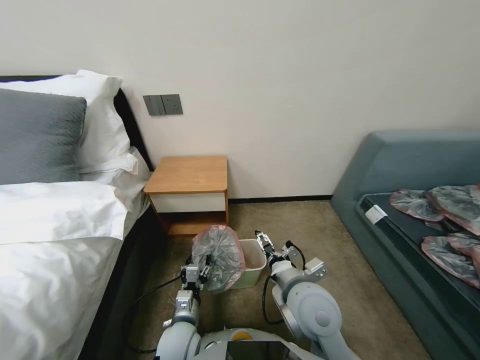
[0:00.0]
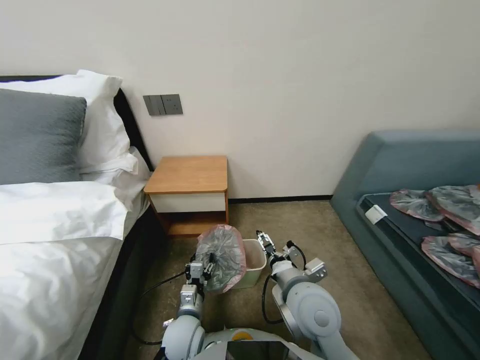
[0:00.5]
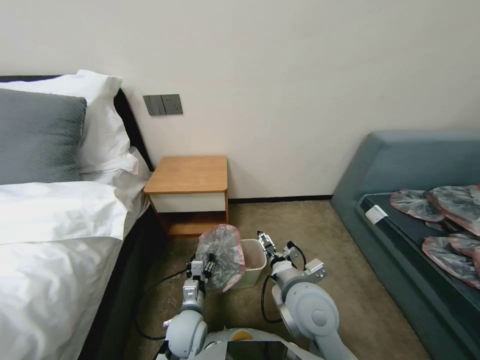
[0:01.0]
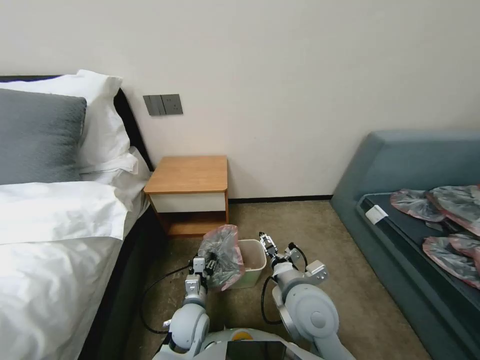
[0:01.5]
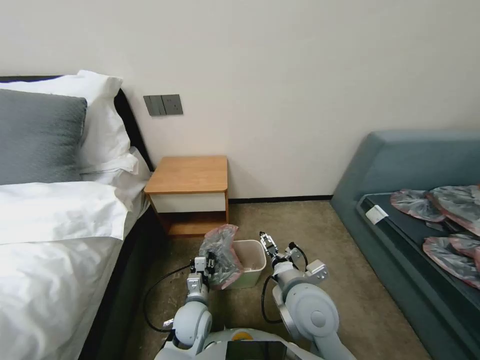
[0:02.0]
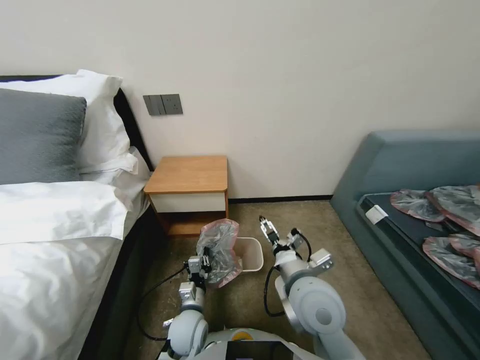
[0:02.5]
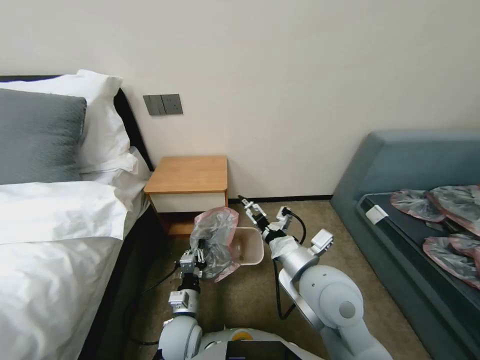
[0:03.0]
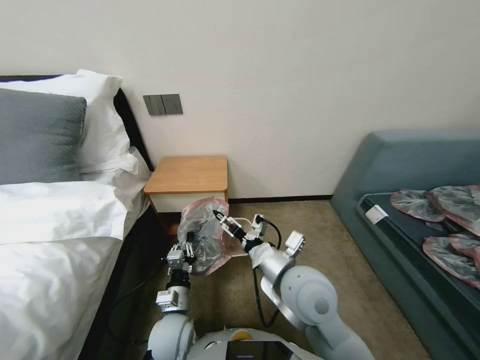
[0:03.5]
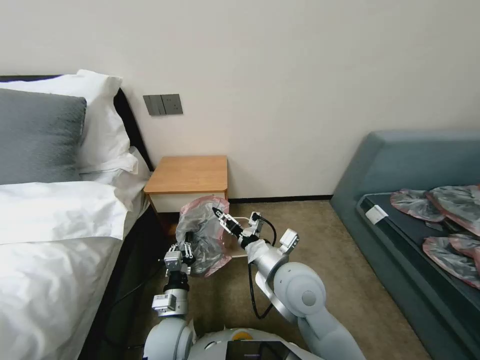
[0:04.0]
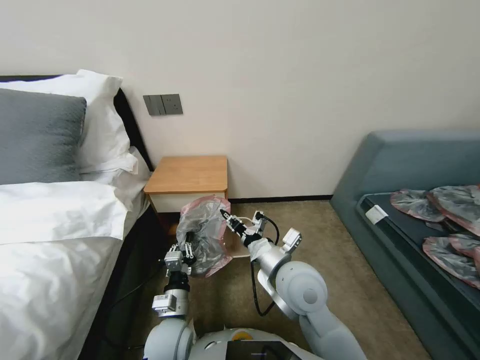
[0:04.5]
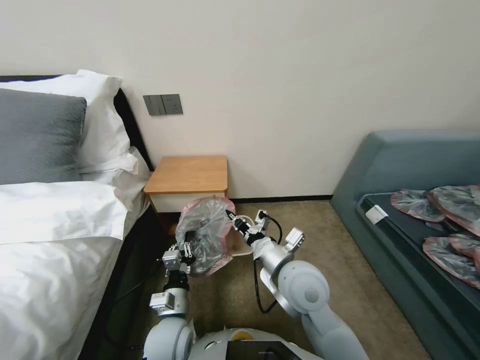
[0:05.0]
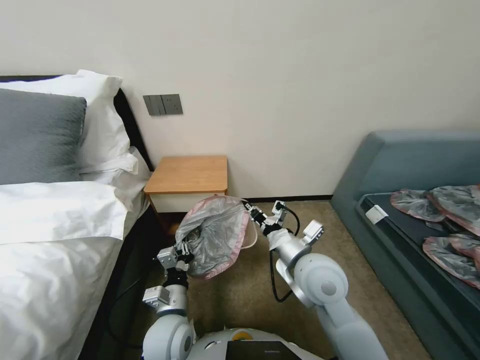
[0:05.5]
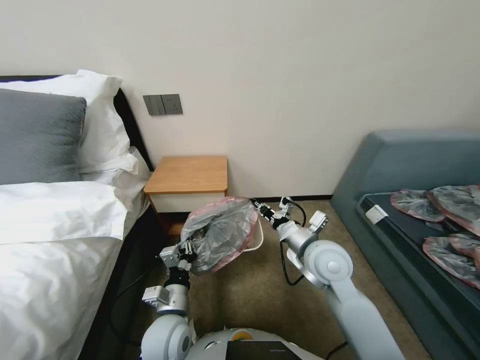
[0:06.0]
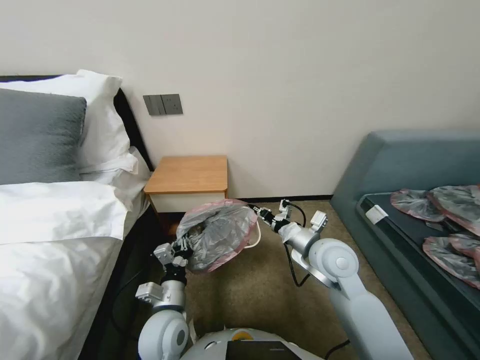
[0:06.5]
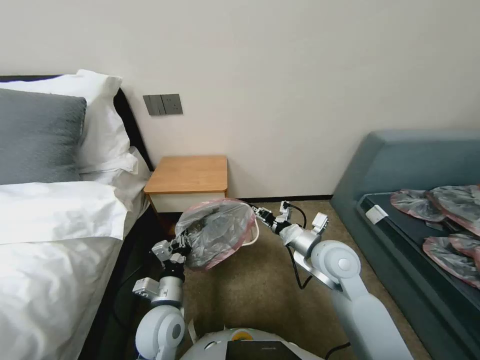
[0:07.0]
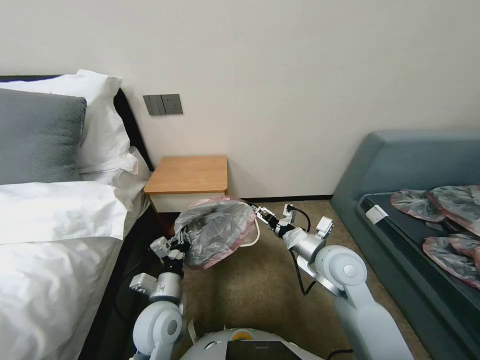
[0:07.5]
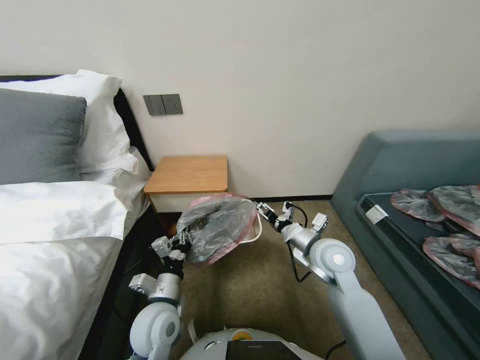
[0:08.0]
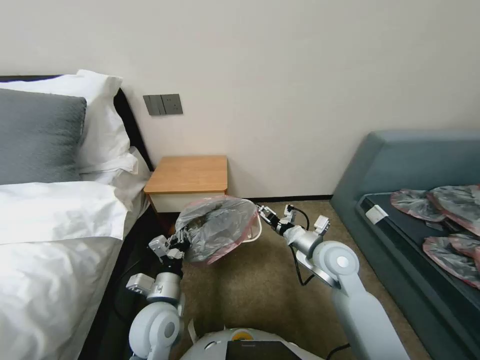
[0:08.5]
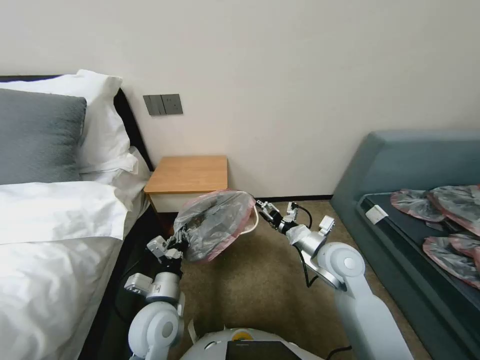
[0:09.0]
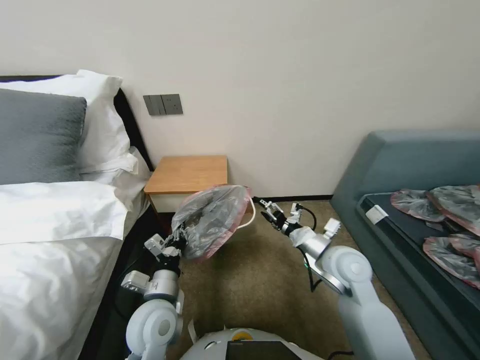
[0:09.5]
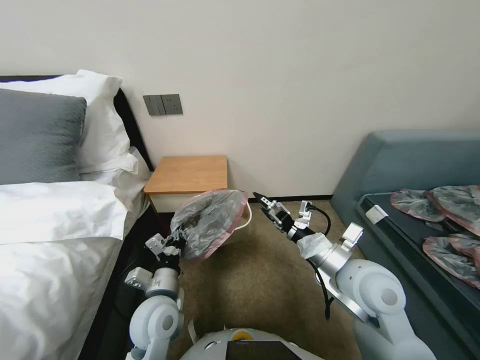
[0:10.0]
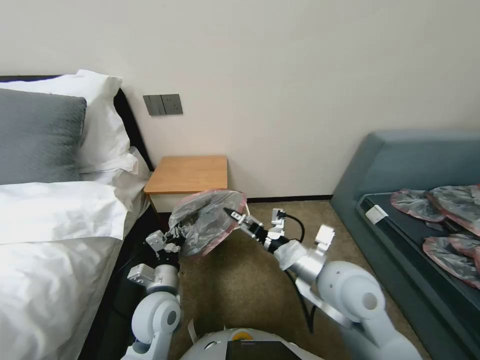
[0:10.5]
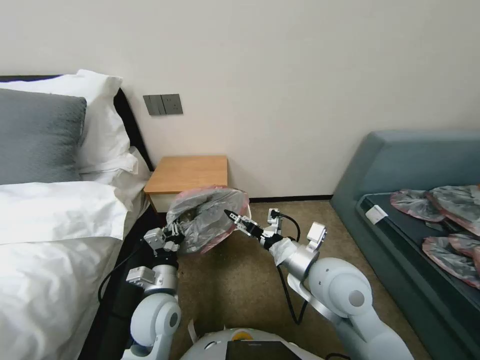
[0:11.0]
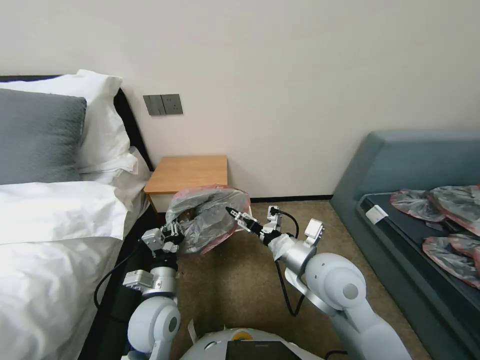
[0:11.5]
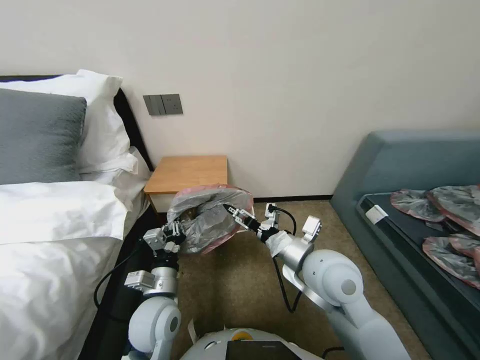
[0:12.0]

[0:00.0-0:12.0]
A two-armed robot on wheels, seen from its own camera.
Task of the whole recording: Pick up the garbage bag from the table and place it over the trash can.
0:00.0 to 0:02.0: The left gripper is displaced forward by about 5 cm.
0:02.0 to 0:04.0: The right gripper moves approximately 5 cm. The left gripper is displaced upward by approximately 5 cm, and closes up.
0:04.0 to 0:06.0: The right gripper moves to the right and forward, approximately 10 cm, and closes up.
0:06.0 to 0:08.0: The right gripper opens.
0:08.0 to 0:10.0: The right gripper is displaced backward by roughly 5 cm.
0:10.0 to 0:12.0: The right gripper is displaced to the left by some 5 cm.

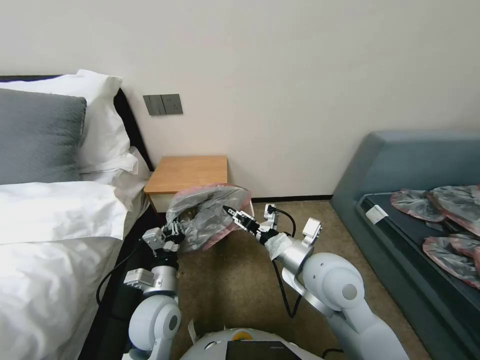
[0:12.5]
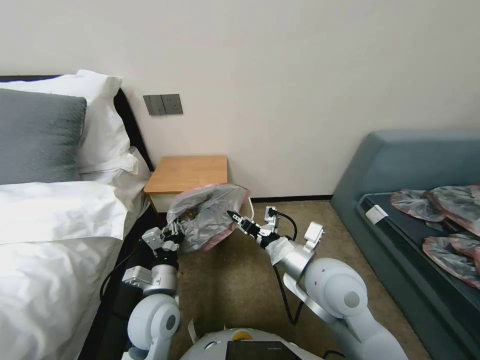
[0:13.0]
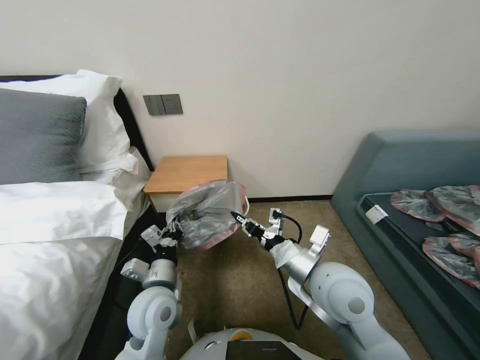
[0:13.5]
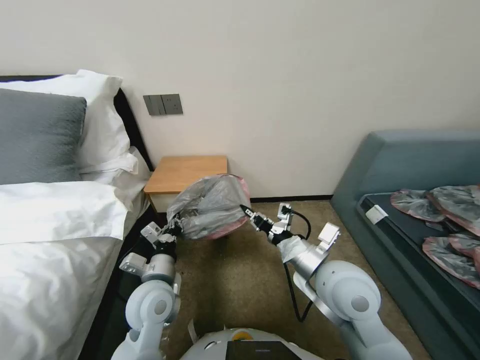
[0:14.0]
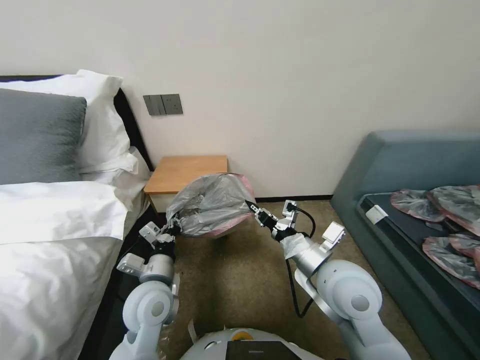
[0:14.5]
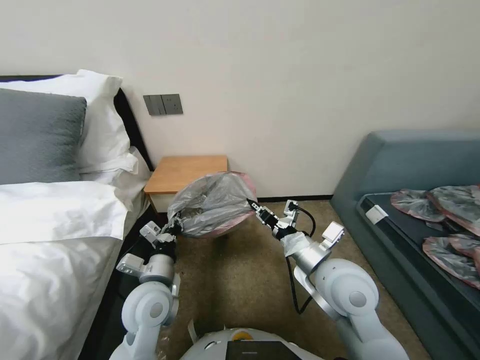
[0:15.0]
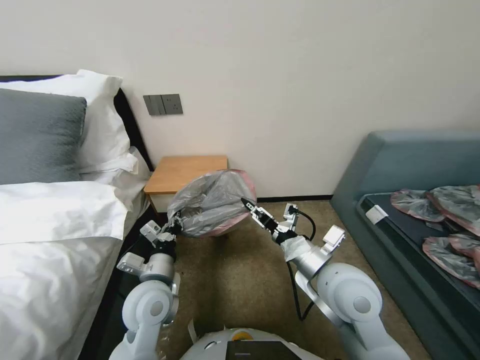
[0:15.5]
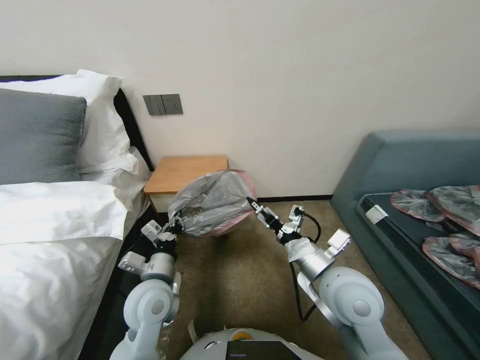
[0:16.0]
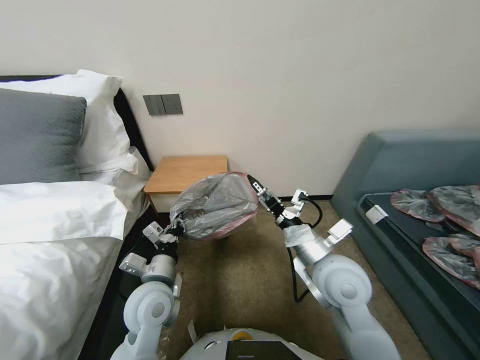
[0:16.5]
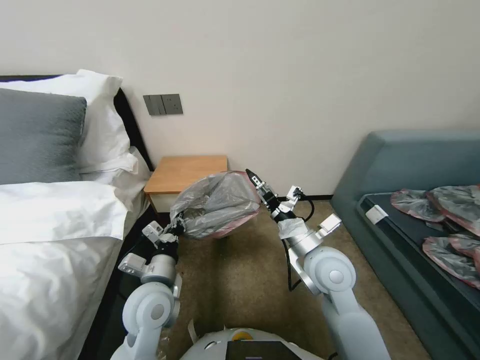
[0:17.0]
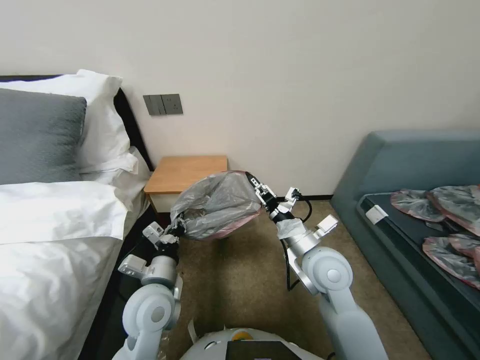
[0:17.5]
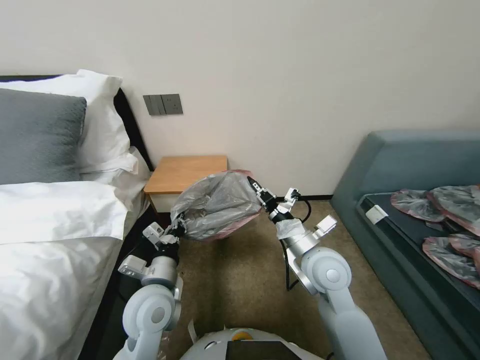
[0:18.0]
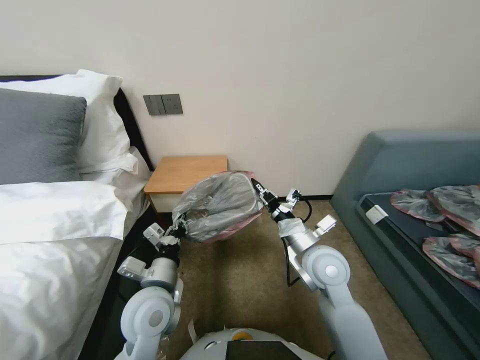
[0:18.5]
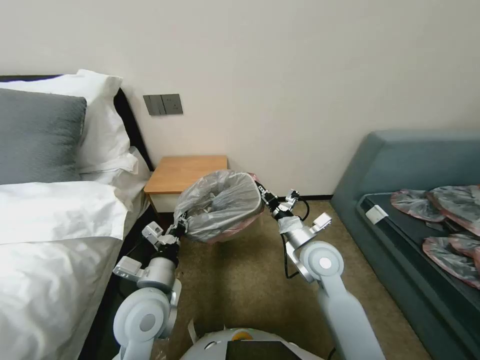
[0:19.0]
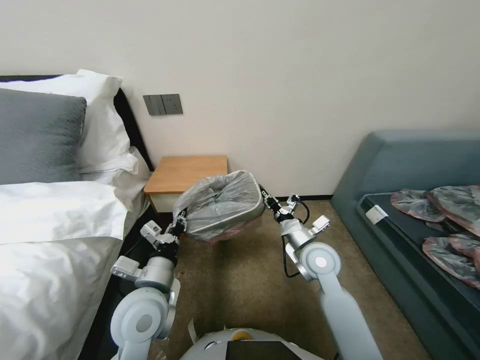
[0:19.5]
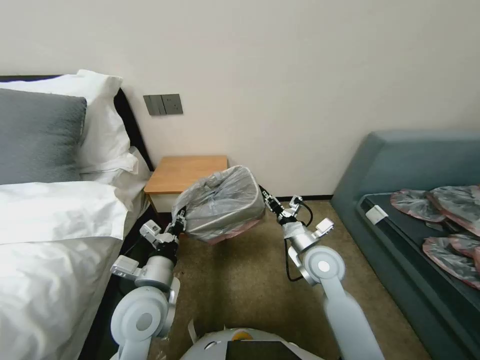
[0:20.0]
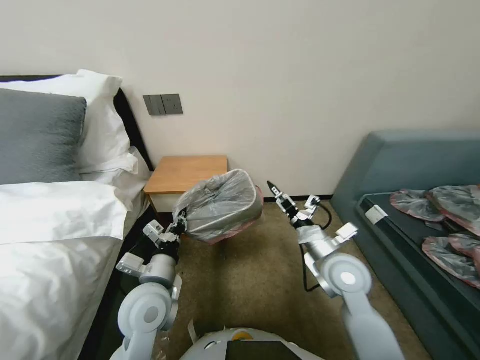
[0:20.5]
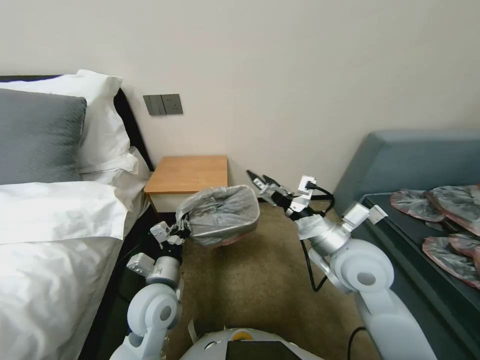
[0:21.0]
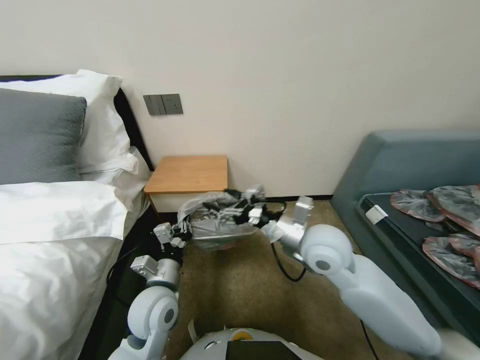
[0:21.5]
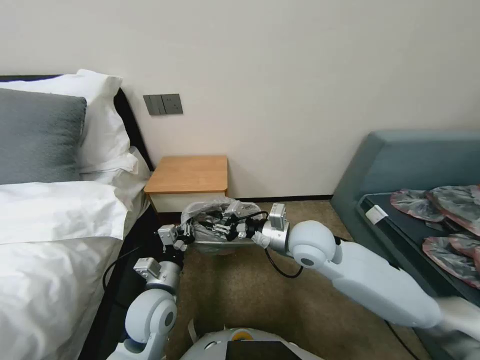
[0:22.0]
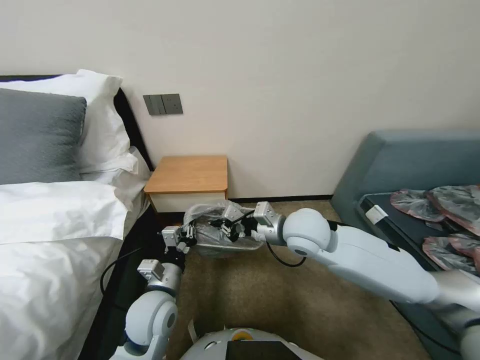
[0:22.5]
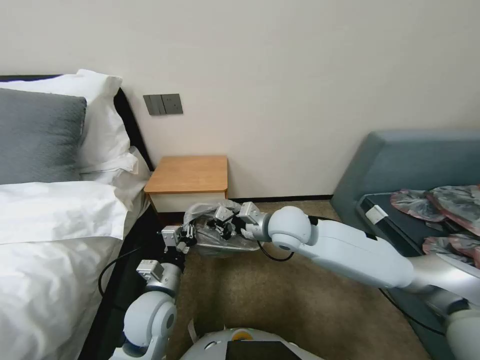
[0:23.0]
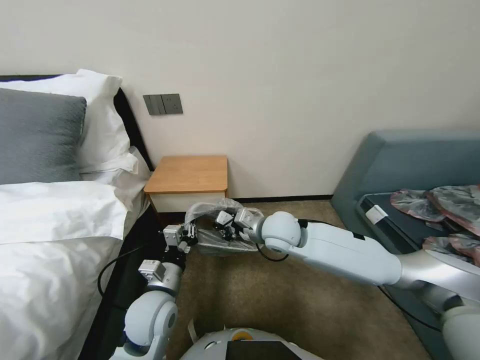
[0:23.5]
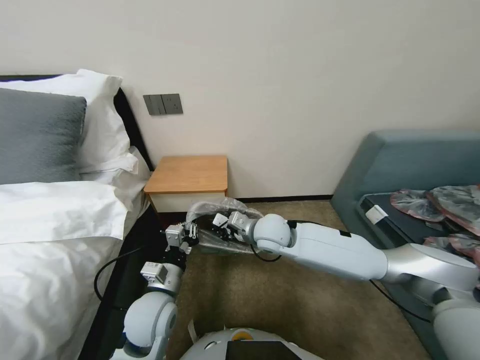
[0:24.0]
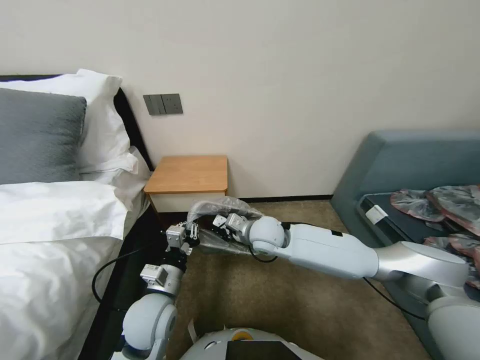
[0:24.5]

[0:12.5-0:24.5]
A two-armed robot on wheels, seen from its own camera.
Task of the whole recording: Pick up the garbage bag from the table and place it over the trash can.
0:12.5 to 0:14.5: The right gripper closes its fingers.
0:14.5 to 0:16.5: The right gripper opens.
0:16.5 to 0:18.5: The right gripper changes place by some 5 cm, and closes up.
0:18.5 to 0:20.5: The right gripper moves some 5 cm, and opens.
0:20.5 to 0:22.5: The right gripper goes about 15 cm upward and to the left, and closes up.
0:22.5 to 0:24.5: The right gripper is displaced downward and to the left by some 10 cm.

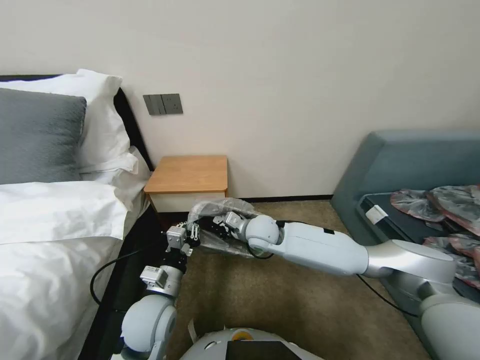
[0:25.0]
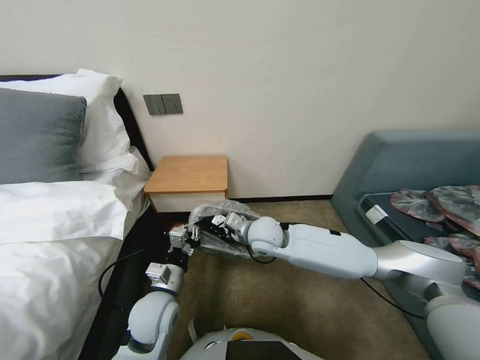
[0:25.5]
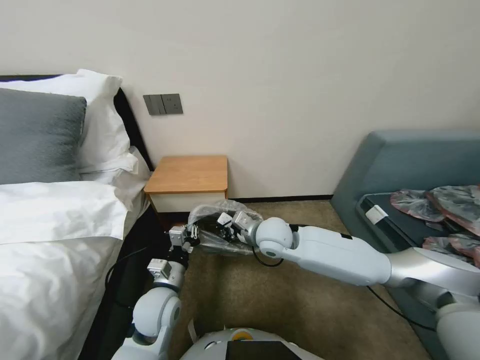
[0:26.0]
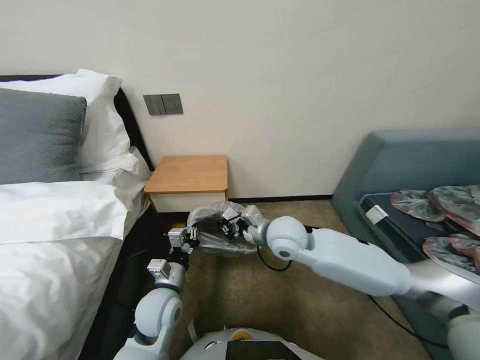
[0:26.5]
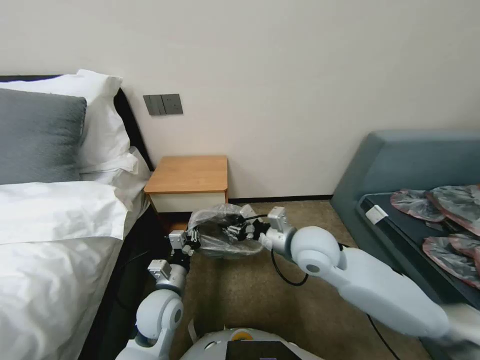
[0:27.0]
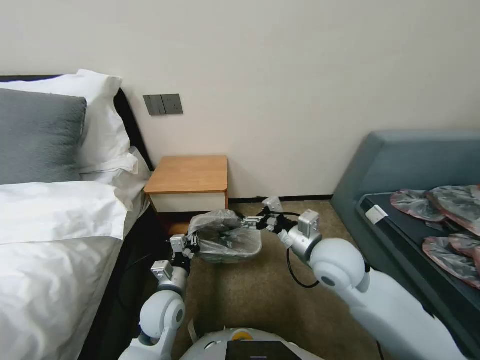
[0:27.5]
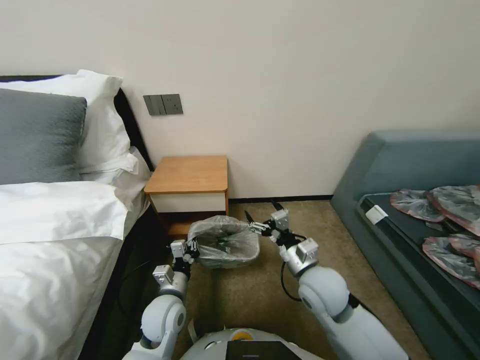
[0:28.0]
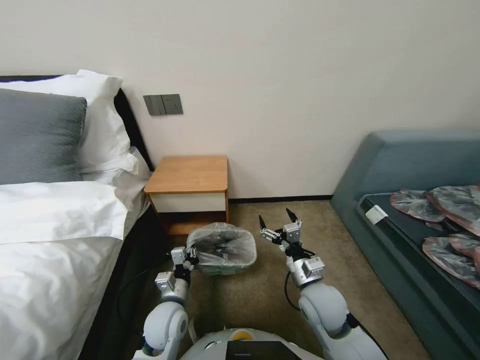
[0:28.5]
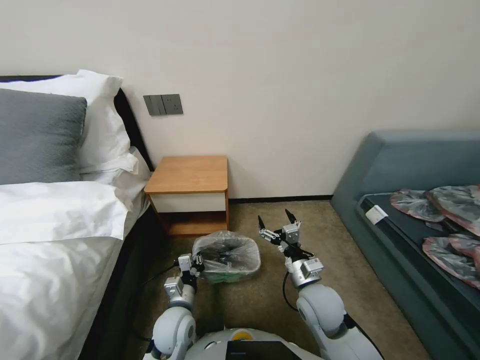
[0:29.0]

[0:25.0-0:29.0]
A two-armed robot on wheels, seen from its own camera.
Task of the whole recording: Pick up the garbage bag from the table and place it over the trash can.
0:25.0 to 0:27.0: The right gripper shifts roughly 15 cm backward, to the right and upward, and opens its fingers.
0:27.0 to 0:29.0: The right gripper heads downward and backward, covering roughly 15 cm, and opens up; the left gripper is displaced downward by some 5 cm.
